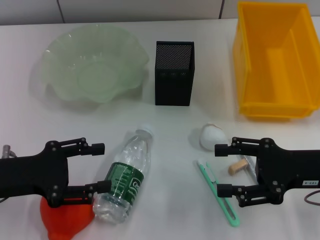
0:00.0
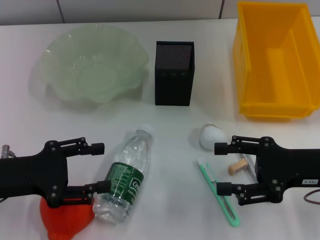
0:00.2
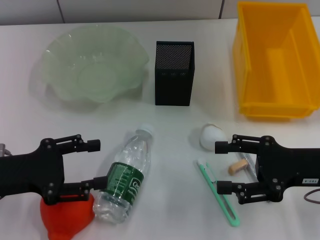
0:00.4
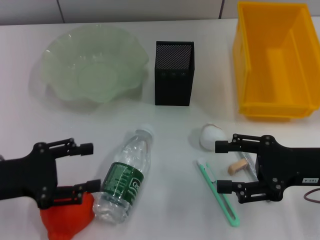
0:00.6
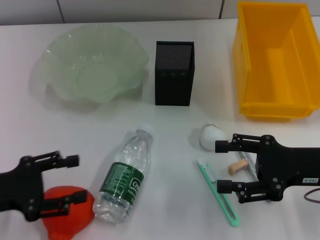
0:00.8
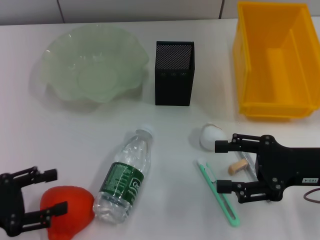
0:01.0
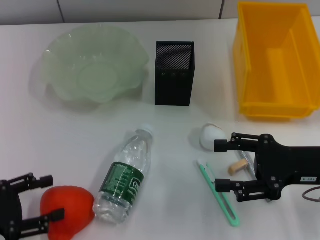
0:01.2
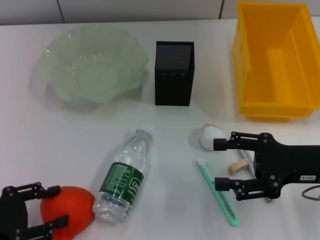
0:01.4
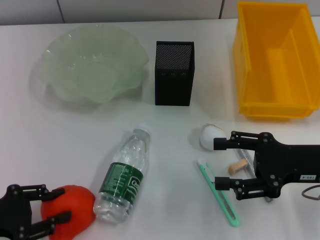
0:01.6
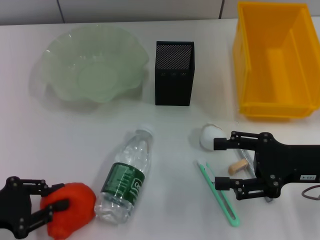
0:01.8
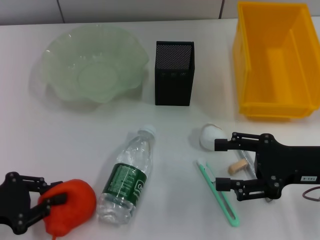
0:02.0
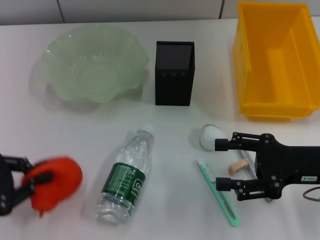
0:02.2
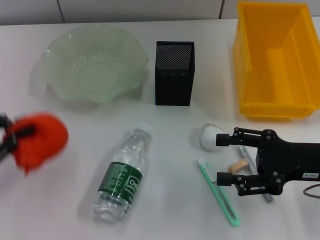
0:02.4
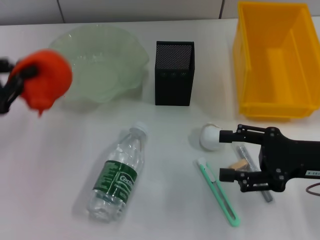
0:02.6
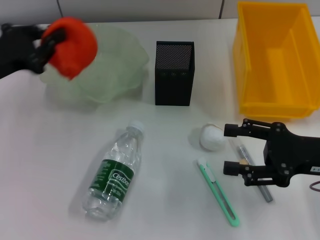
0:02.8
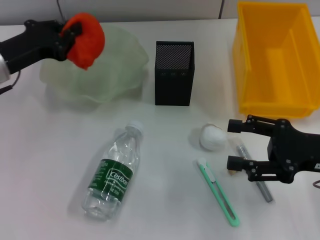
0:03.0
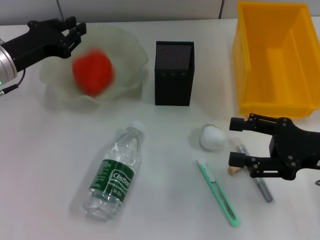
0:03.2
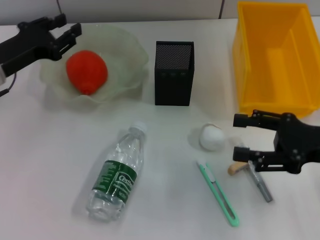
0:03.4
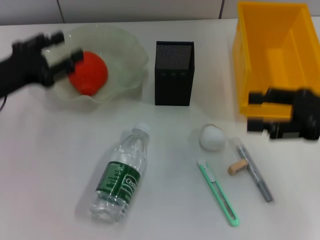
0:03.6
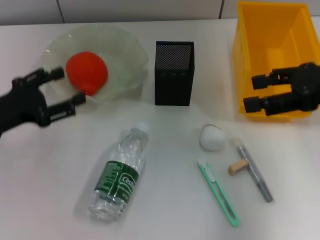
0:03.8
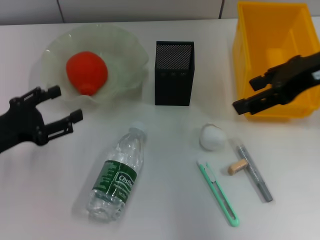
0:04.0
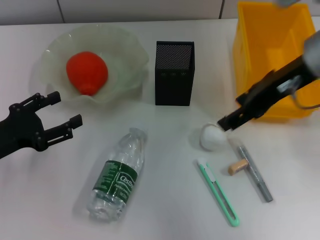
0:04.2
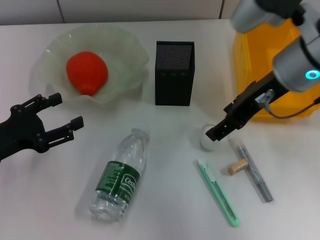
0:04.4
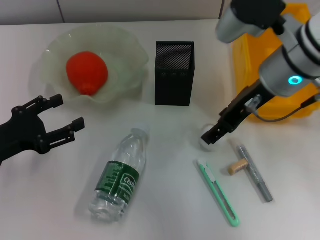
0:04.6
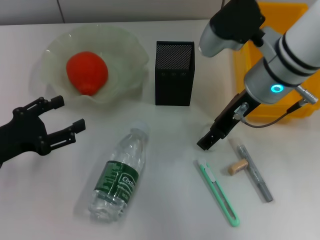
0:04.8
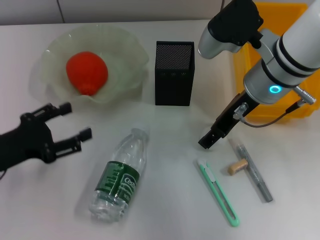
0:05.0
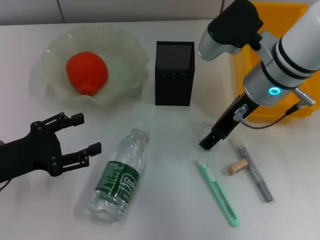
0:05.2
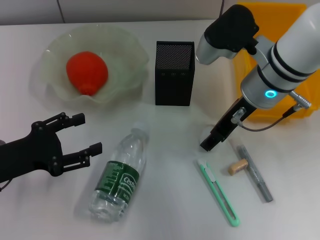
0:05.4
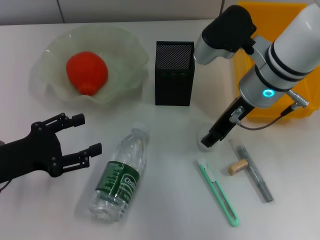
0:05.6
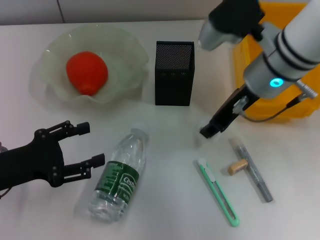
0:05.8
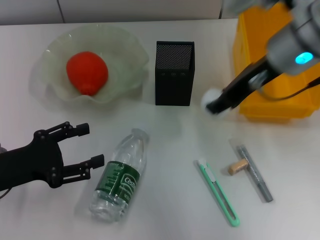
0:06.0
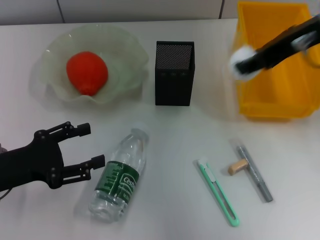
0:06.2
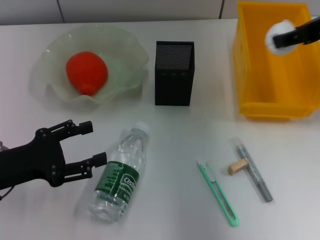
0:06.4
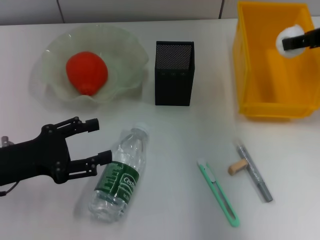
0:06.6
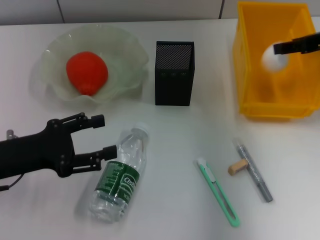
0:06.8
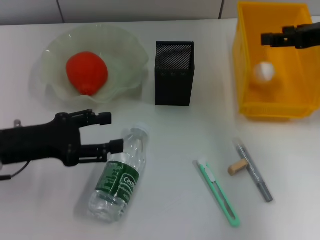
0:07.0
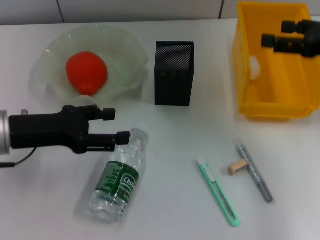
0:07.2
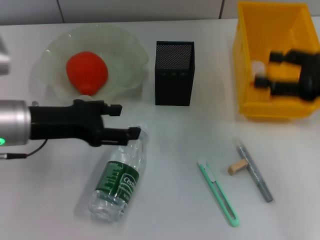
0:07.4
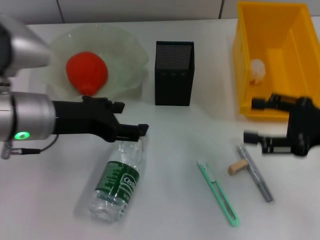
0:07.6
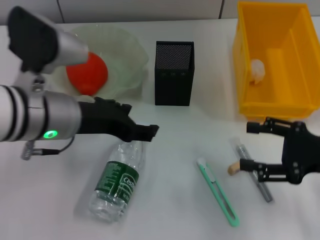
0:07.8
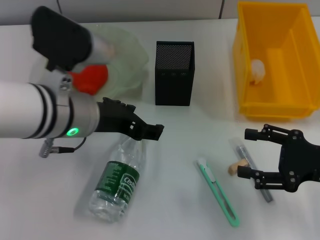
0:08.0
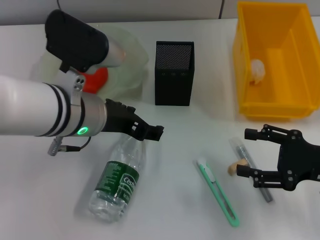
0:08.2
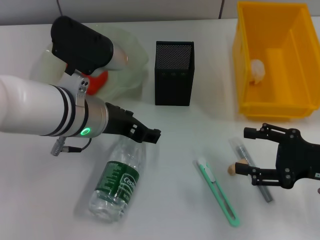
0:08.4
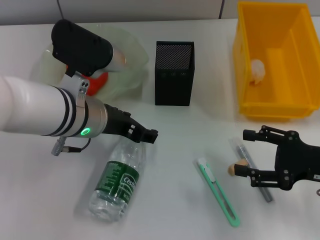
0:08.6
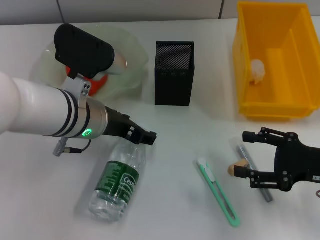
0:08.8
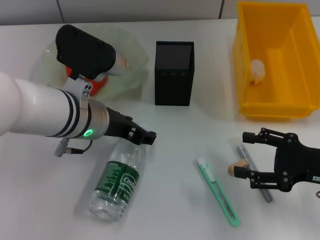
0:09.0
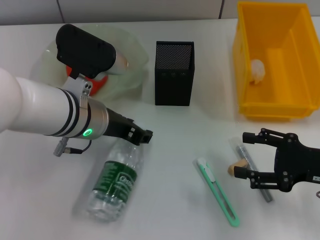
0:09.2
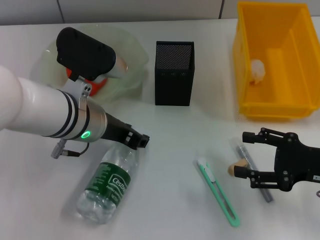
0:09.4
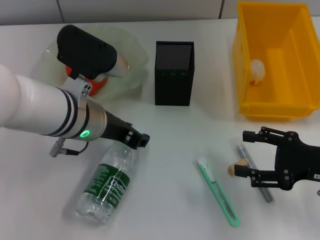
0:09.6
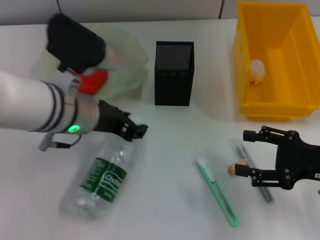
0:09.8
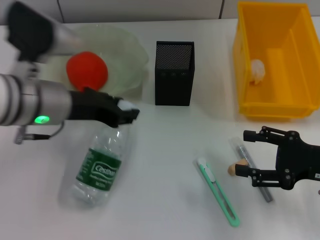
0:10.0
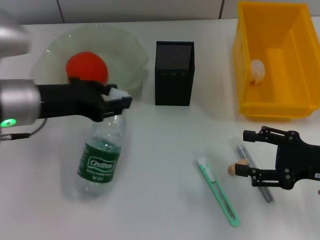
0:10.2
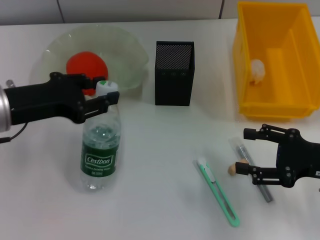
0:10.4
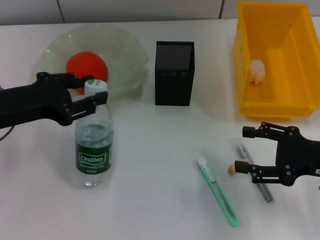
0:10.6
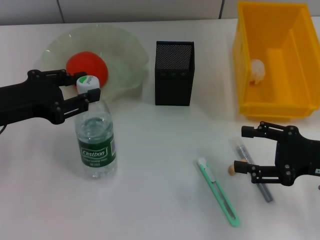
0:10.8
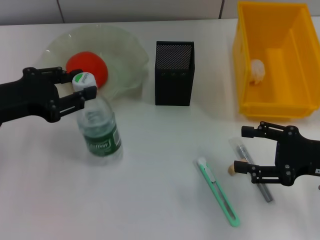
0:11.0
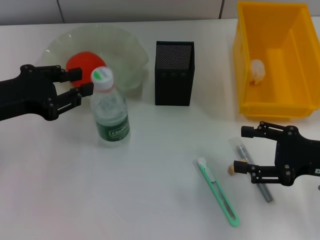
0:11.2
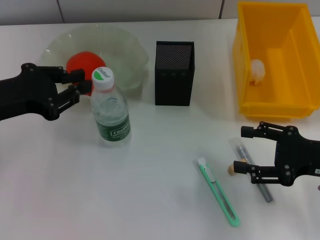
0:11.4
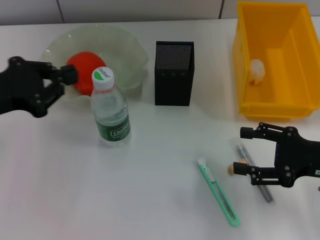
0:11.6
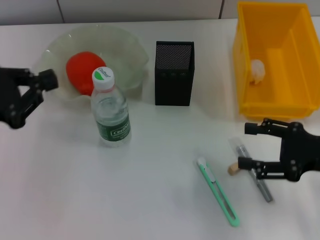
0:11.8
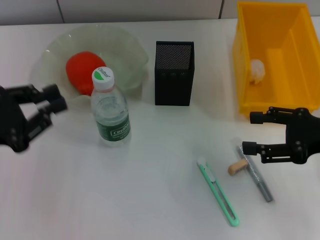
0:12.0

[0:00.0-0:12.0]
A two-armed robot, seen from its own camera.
Step, 0:00.0 to 0:01.8: Grab the orange with the left hand.
Step, 0:02.2 to 0:03.4: Place the orange into the fruit bowl with the left hand.
Step, 0:03.8 to 0:05.4: Grab the paper ball with the right hand.
Step, 0:05.6 to 0:07.0: Place the paper ball into the trash can with the right hand.
Step, 0:07.4 to 0:09.6: Grab the water bottle with the left hand.
Step, 0:09.8 to 0:11.4: Place the water bottle on the table with the left hand.
0:00.0 to 0:01.6: The left gripper travels backward by about 5 cm.
0:01.6 to 0:03.0: The left gripper travels forward by approximately 20 cm, and closes.
0:03.0 to 0:04.4: The left gripper is displaced backward by approximately 10 cm, and opens up, while the right gripper heads to the left, upward and forward, covering some 20 cm.
0:04.4 to 0:06.0: The right gripper reaches about 5 cm downward, then returns, and closes up.
0:06.0 to 0:07.6: The left gripper travels to the right, upward and forward by about 15 cm, while the right gripper is displaced to the right, downward and backward by roughly 20 cm, and opens up.
0:07.6 to 0:09.0: The left gripper moves to the right, roughly 5 cm, while the right gripper heads downward, covering about 5 cm.
0:09.0 to 0:10.4: The left gripper goes some 10 cm to the left, and closes up.
0:10.4 to 0:12.0: The right gripper heads upward, covering roughly 5 cm. Meanwhile the left gripper moves to the left and backward, about 10 cm, and closes up.

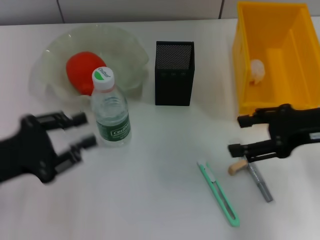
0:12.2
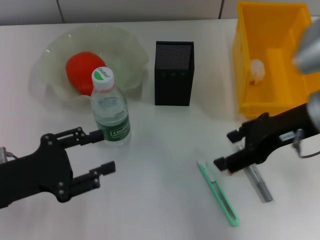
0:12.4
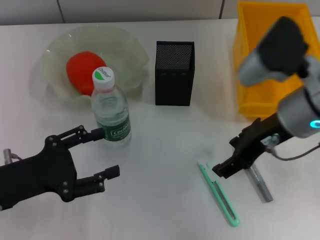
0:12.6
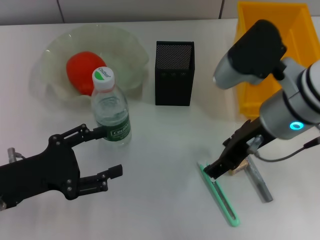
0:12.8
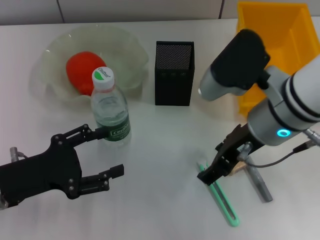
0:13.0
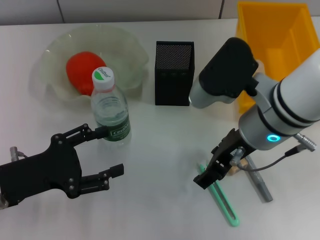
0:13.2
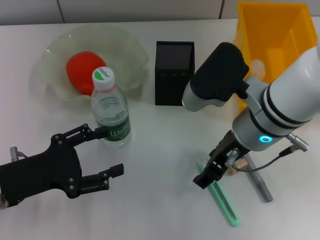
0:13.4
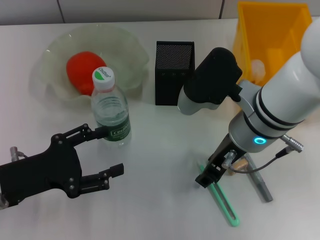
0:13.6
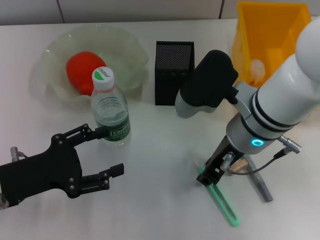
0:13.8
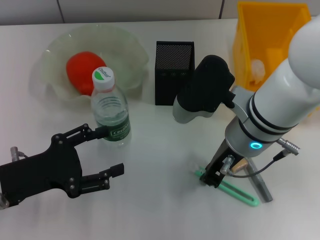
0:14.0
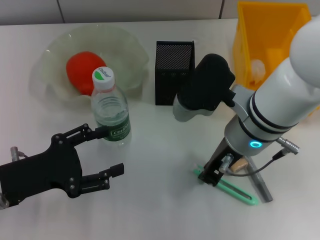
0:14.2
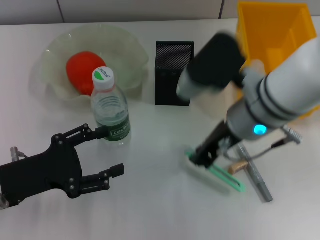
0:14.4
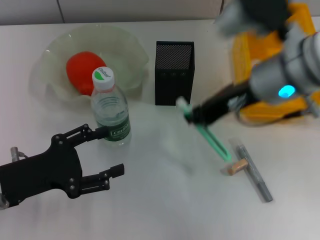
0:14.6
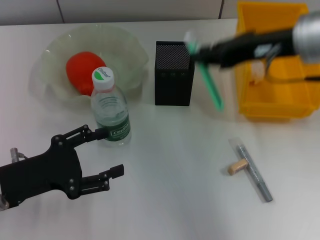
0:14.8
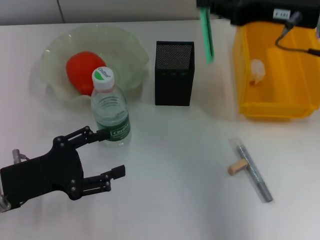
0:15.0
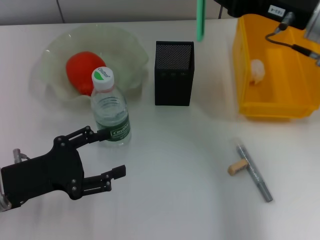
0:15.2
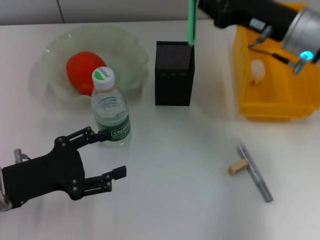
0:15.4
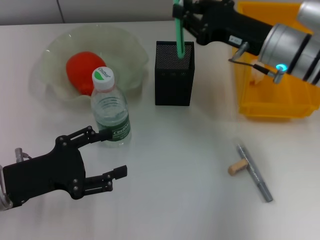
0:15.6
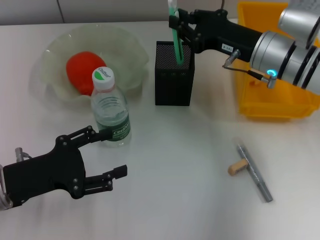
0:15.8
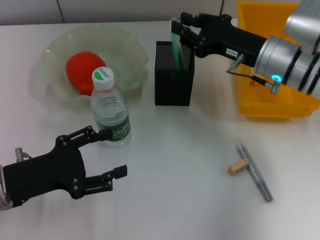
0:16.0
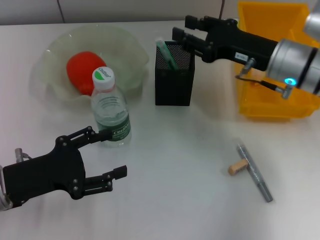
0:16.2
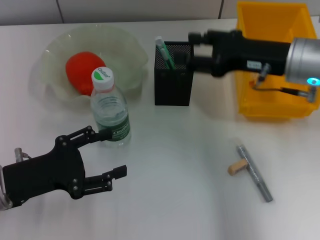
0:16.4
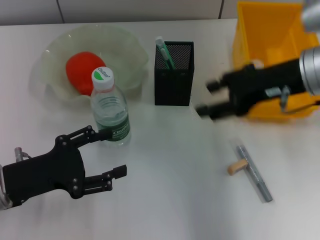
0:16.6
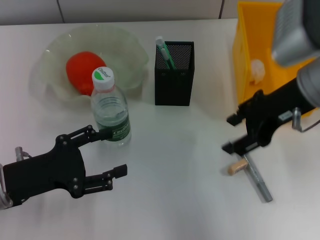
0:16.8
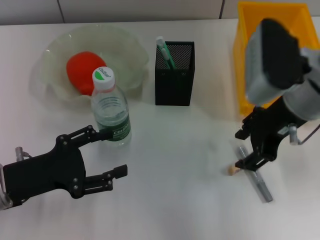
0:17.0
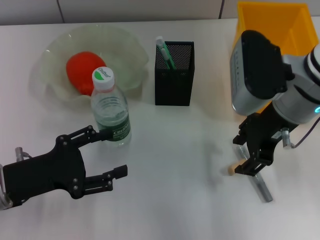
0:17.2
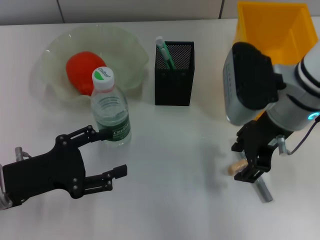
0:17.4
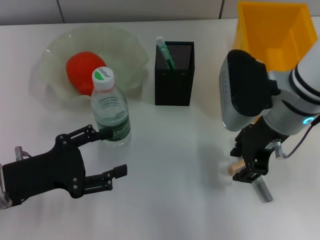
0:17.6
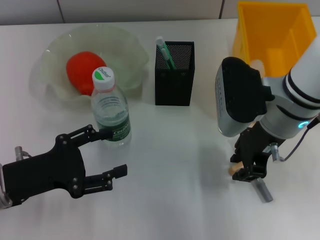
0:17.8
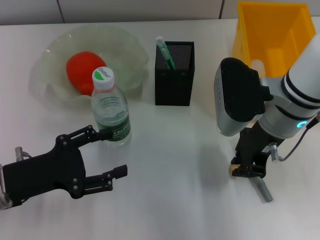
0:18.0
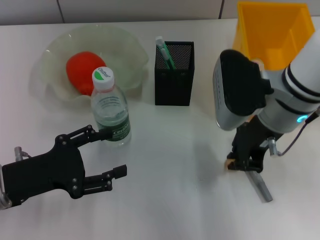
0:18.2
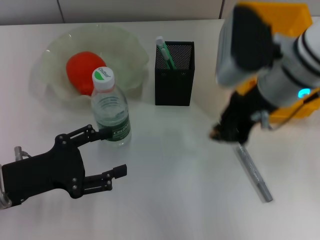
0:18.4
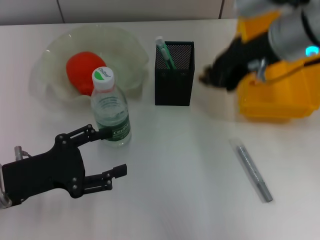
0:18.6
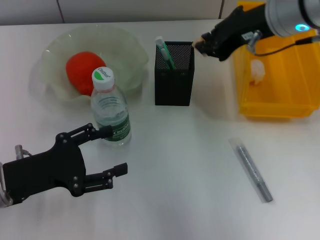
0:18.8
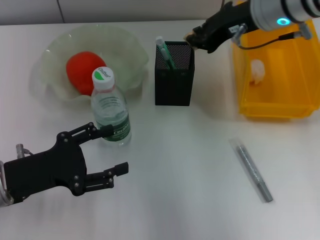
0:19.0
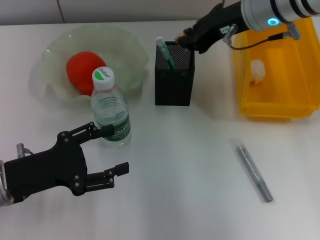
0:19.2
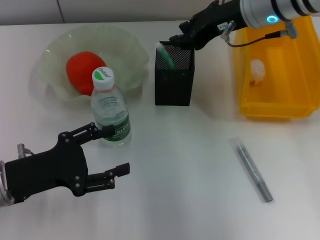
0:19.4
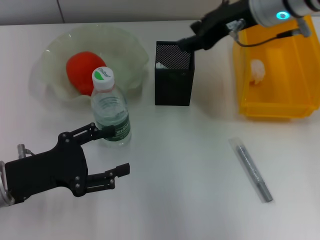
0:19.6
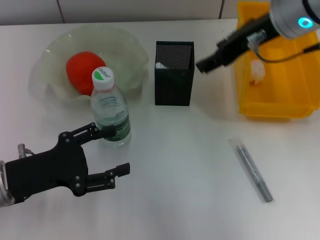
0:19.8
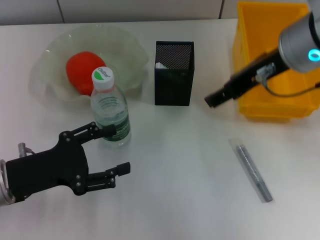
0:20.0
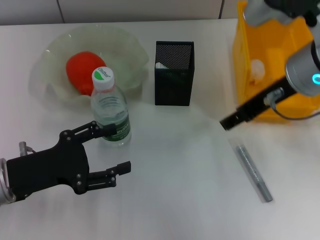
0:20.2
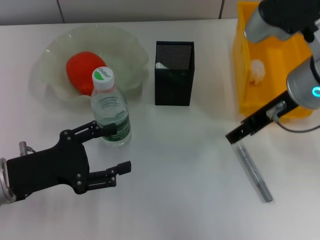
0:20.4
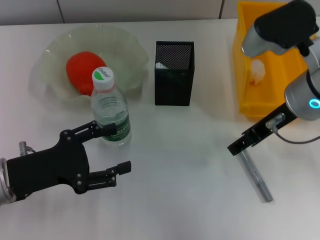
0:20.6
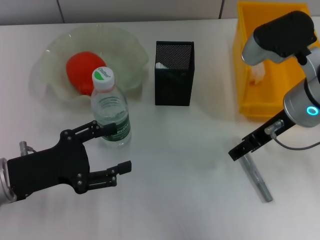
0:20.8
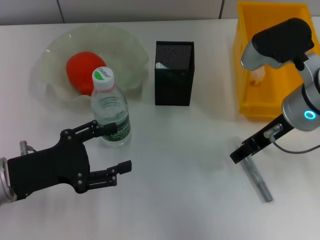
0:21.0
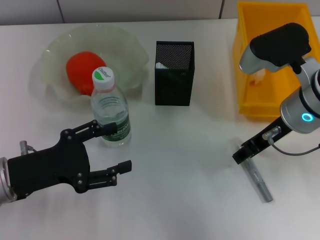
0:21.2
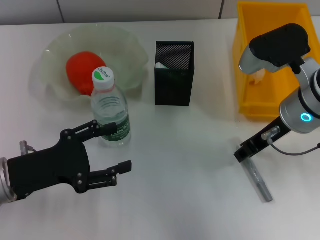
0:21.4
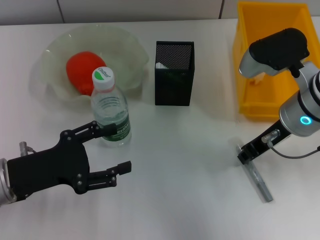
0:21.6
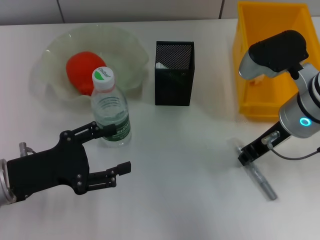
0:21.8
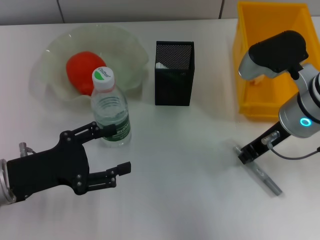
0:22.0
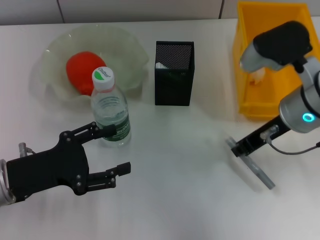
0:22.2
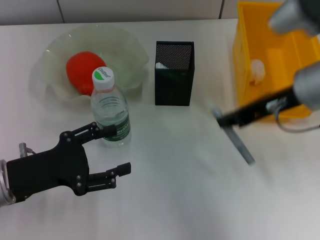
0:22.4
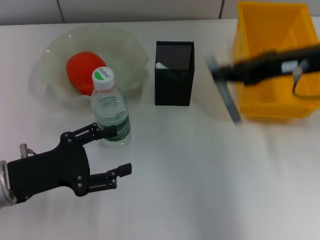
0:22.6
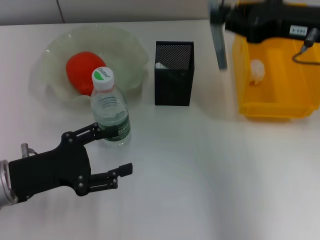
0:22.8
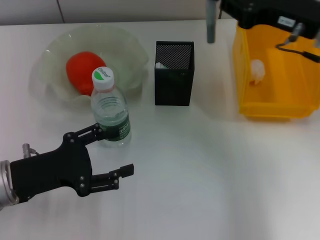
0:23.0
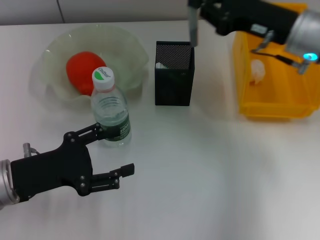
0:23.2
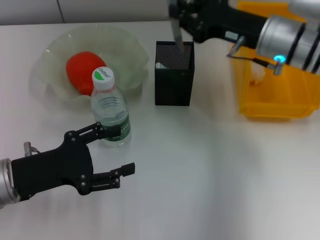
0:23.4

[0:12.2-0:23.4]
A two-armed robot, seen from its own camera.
Step, 0:12.2 to 0:13.8: Grab the blue utility knife with the right hand.
Step, 0:14.2 to 0:16.2: Place the blue utility knife into the pen holder with the right hand.
Step, 0:16.4 to 0:17.8: Grab the eraser with the right hand.
Step, 0:18.2 to 0:19.6: Put the eraser into the pen holder with the right hand.
Step, 0:19.8 to 0:21.6: Grab the gray glue with the right hand.
0:12.2 to 0:13.8: The left gripper opens its fingers; the right gripper goes about 15 cm to the left.
0:13.8 to 0:15.4: The right gripper is displaced to the right and forward by approximately 10 cm, and closes its fingers.
0:15.4 to 0:17.0: The right gripper reaches roughly 5 cm downward, then returns, and opens up.
0:17.0 to 0:18.6: The right gripper travels upward by roughly 5 cm, and closes its fingers.
0:18.6 to 0:20.2: The right gripper reaches approximately 5 cm forward, then returns, and opens its fingers.
0:20.2 to 0:21.8: The right gripper heads downward, covering approximately 5 cm, and closes up.
0:21.8 to 0:23.4: The right gripper shifts about 5 cm forward, and travels upward and back again, roughly 10 cm each way.
